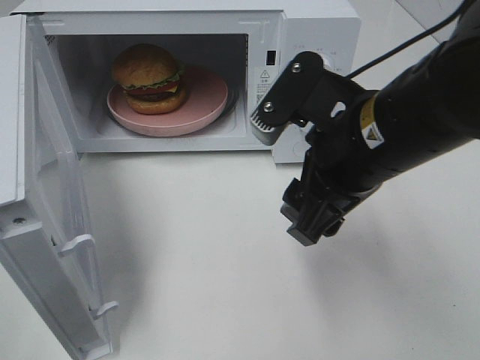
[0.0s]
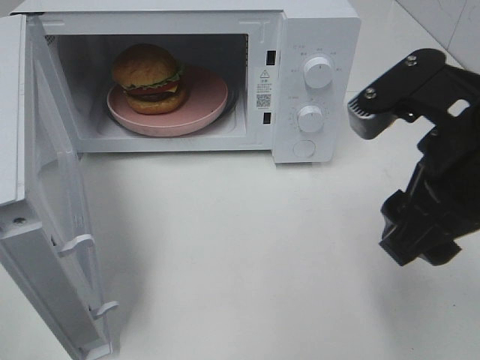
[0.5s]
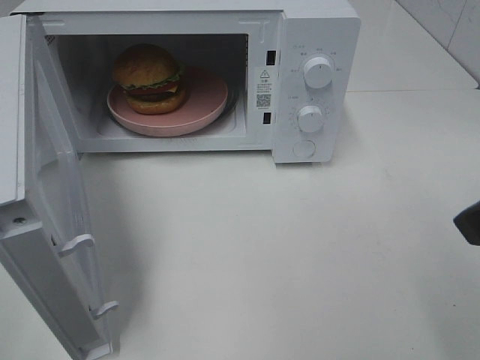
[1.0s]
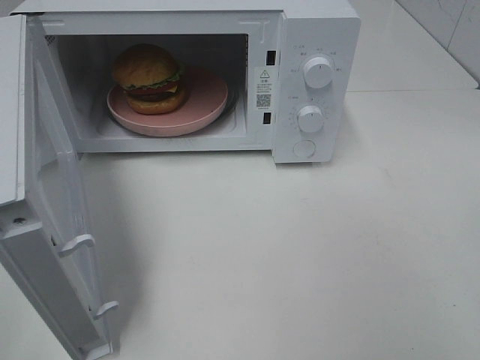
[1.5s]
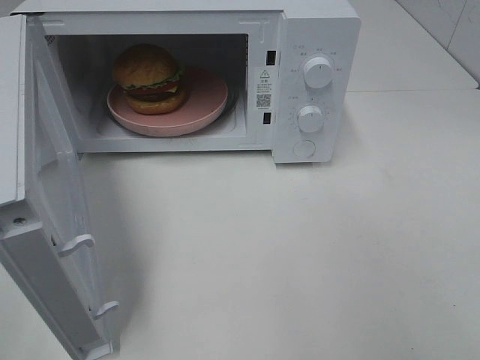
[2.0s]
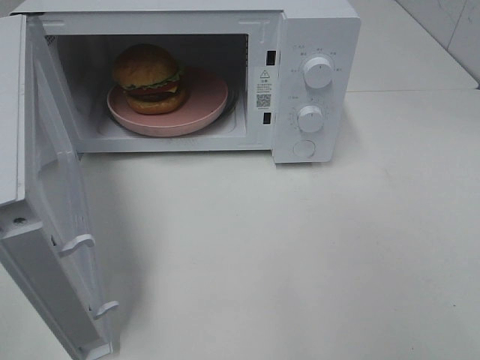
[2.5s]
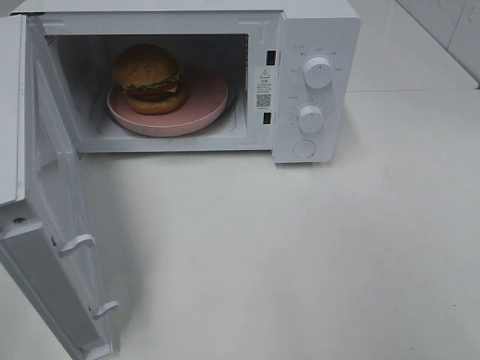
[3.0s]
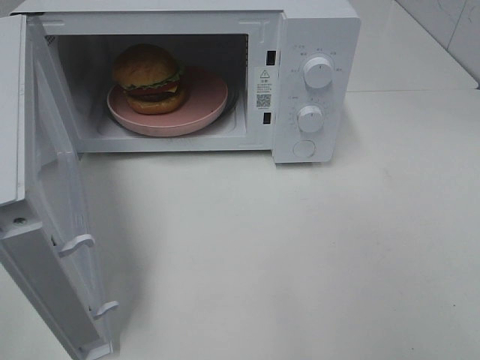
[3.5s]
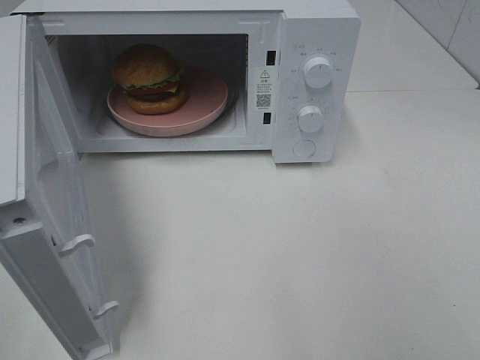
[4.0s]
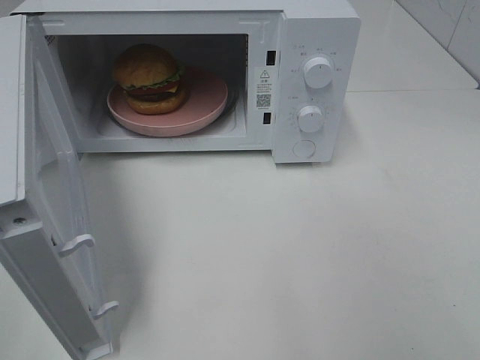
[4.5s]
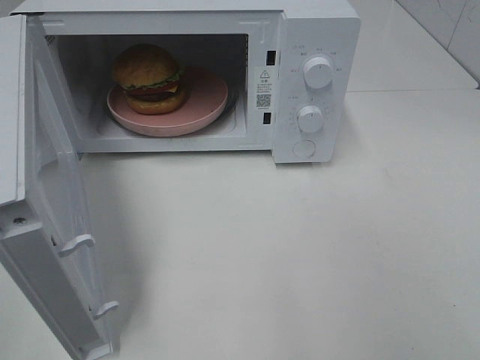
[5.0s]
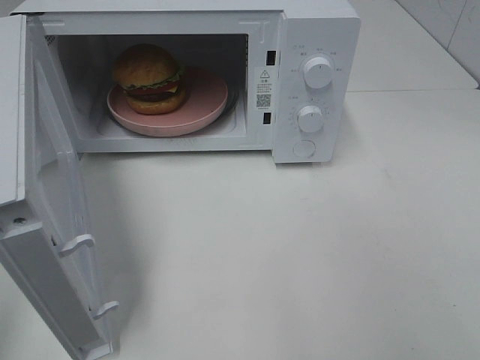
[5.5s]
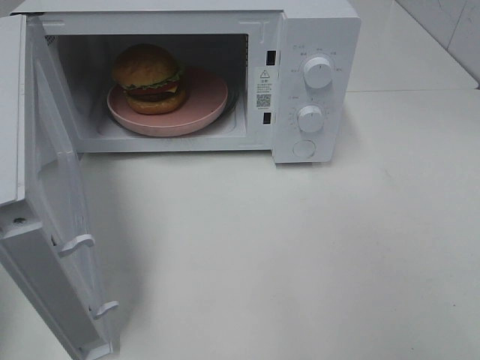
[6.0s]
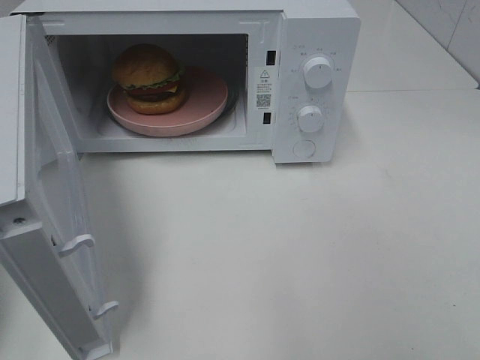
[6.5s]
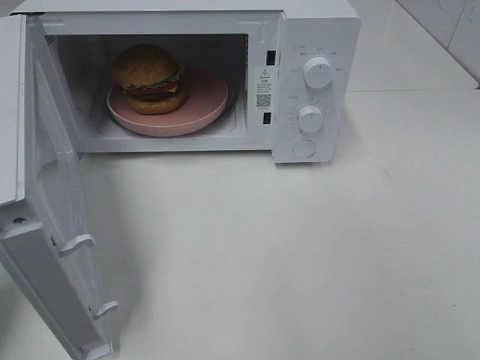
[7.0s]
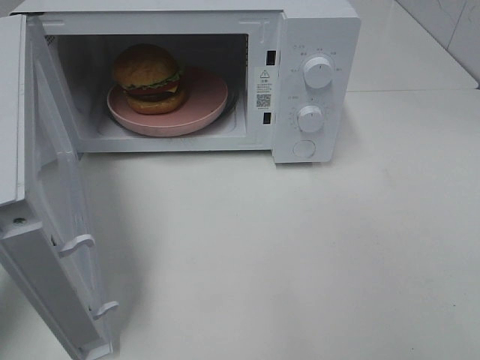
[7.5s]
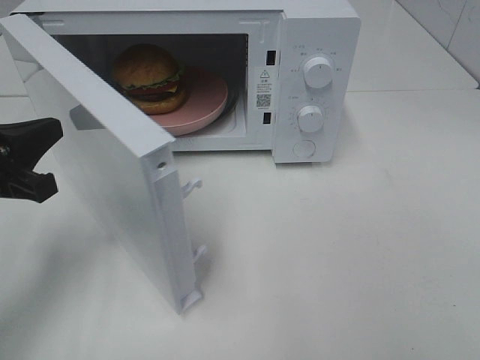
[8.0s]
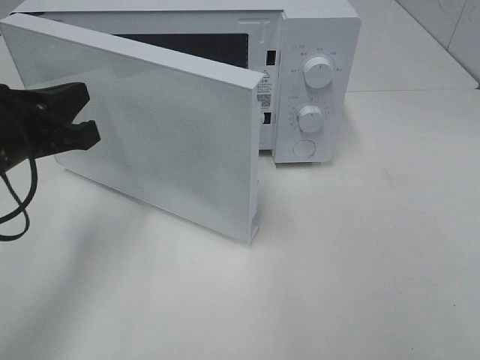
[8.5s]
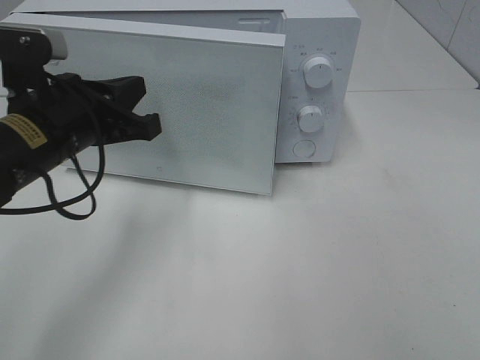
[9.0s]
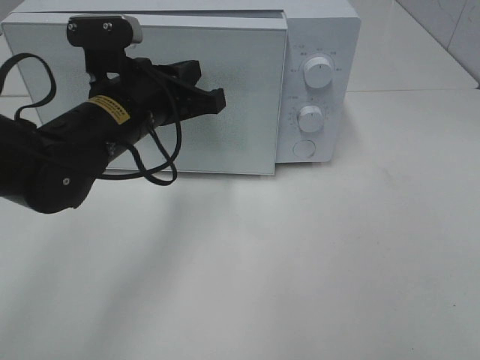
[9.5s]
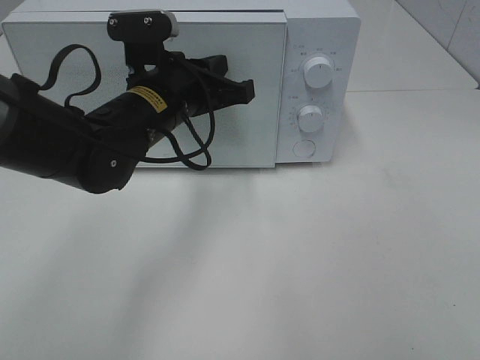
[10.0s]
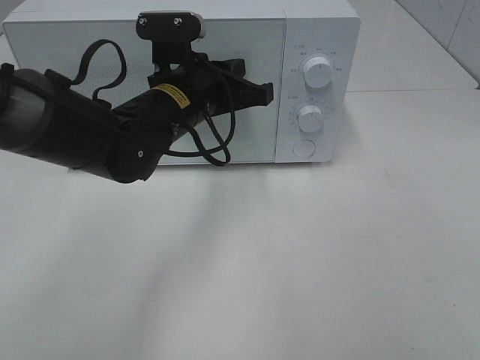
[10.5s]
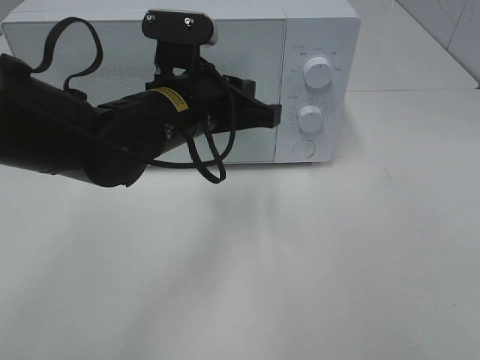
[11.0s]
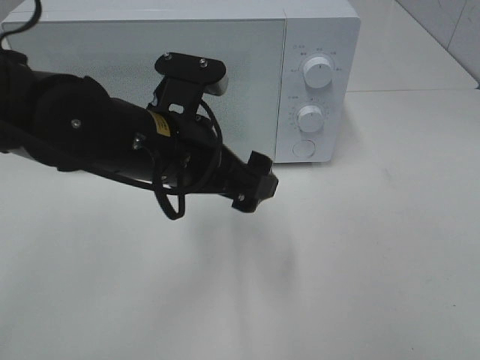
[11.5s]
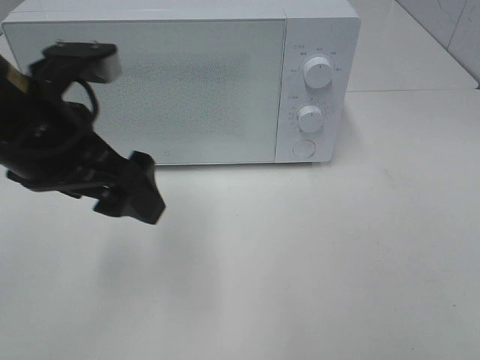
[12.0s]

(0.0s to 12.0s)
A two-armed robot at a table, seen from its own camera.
Task of the whole recording: Heat the burger.
Step, 0.0s - 10.5s: Left hand: close the microwave door.
0.0s - 2.0s: The right gripper moves to the right and backward, roughly 25 cm.
6.0s - 8.0s: The left gripper is displaced forward, downward and to the right by some 20 cm.
8.0s - 10.0s: The left gripper shifts some 20 cm to the right and forward.
10.0s - 12.0s: The left gripper is displaced backward, to the left and upward by about 15 cm, and opens its fingers.

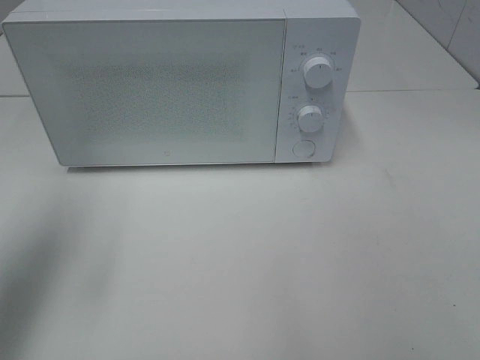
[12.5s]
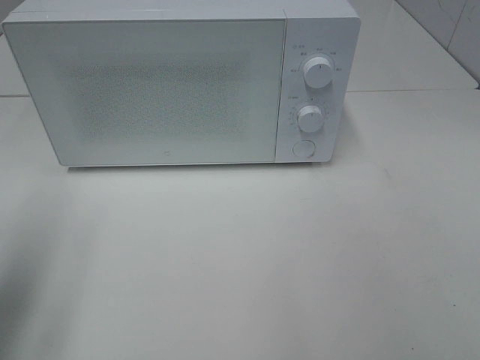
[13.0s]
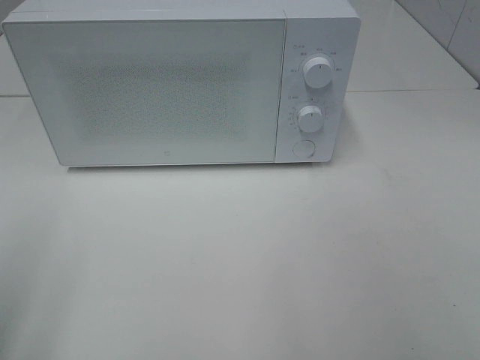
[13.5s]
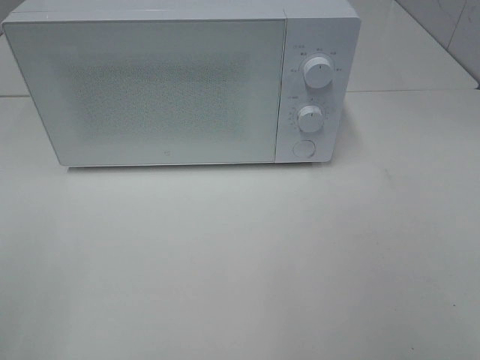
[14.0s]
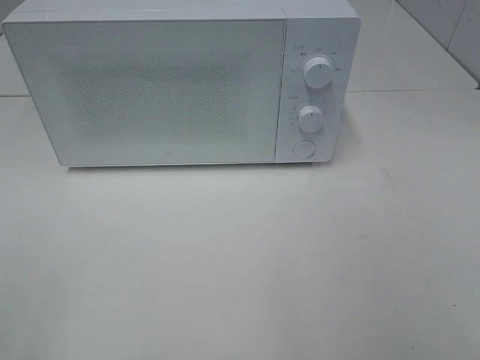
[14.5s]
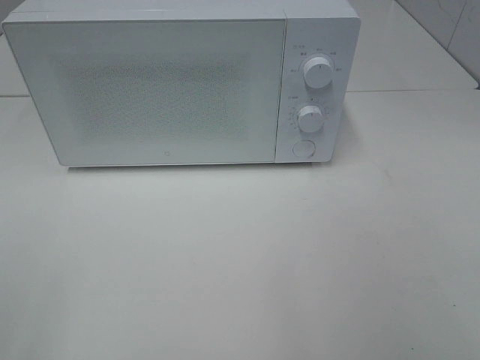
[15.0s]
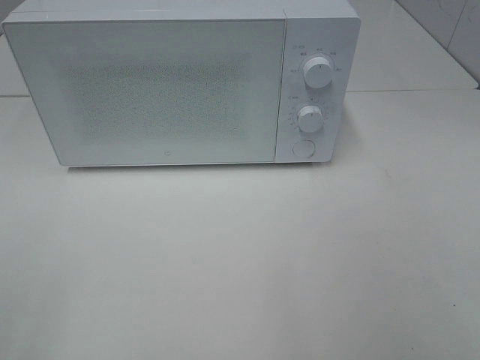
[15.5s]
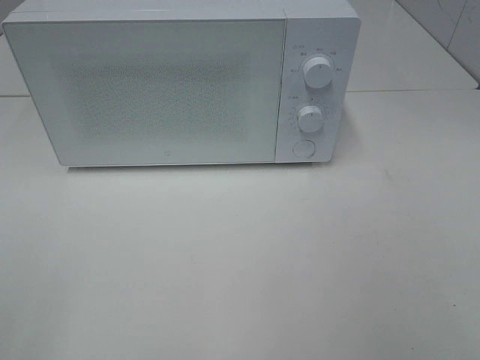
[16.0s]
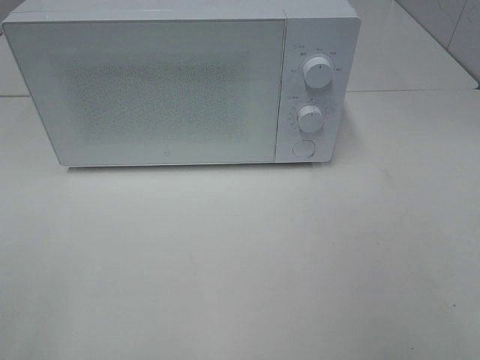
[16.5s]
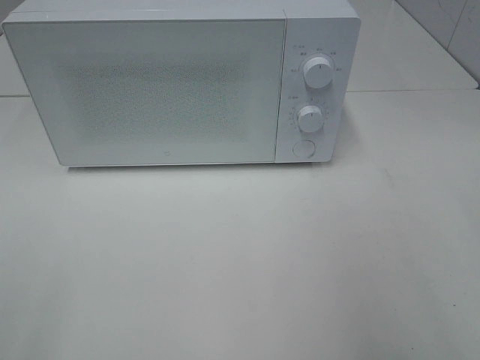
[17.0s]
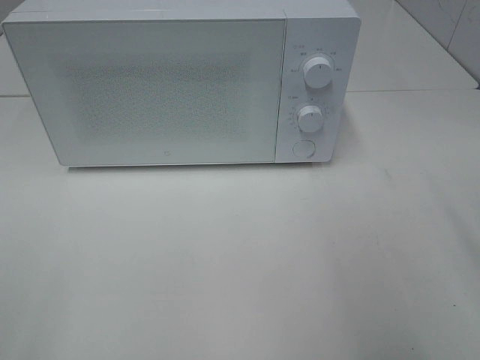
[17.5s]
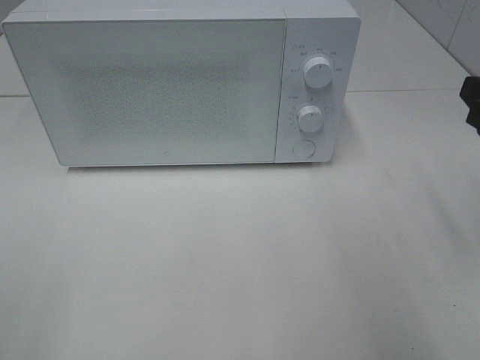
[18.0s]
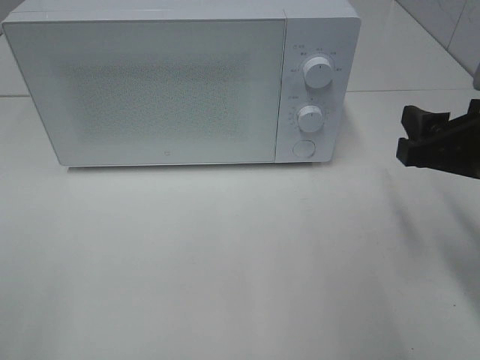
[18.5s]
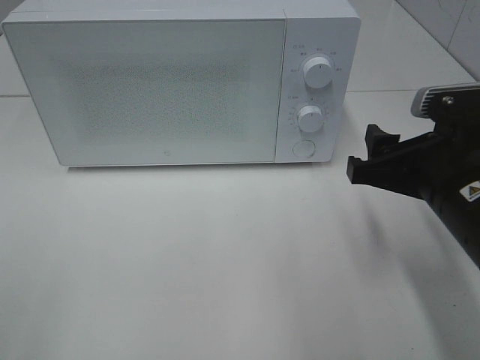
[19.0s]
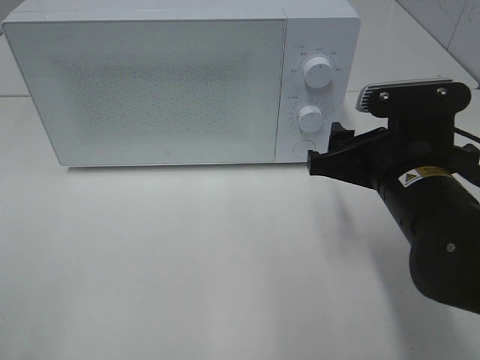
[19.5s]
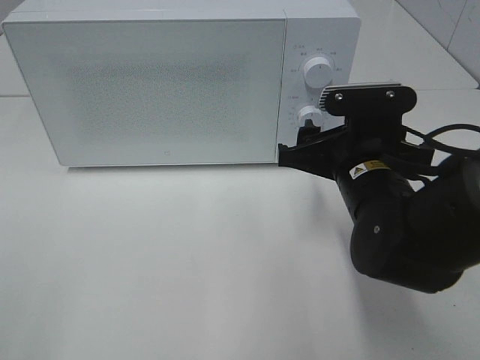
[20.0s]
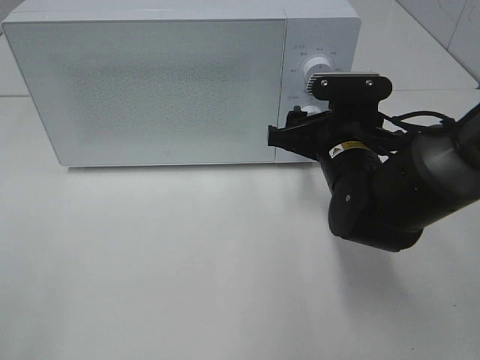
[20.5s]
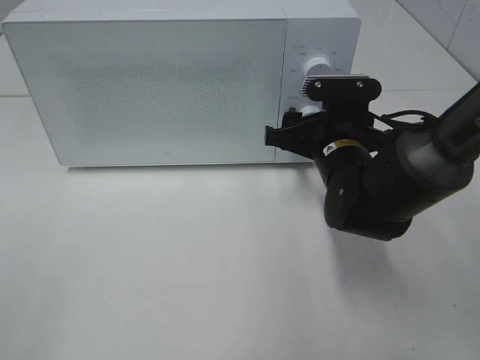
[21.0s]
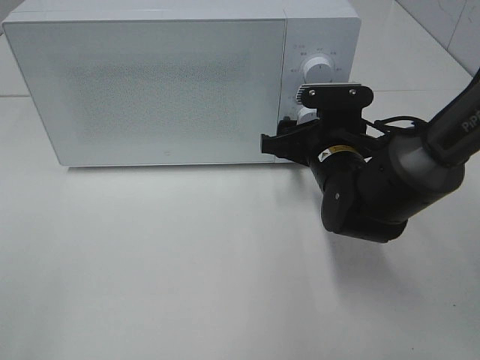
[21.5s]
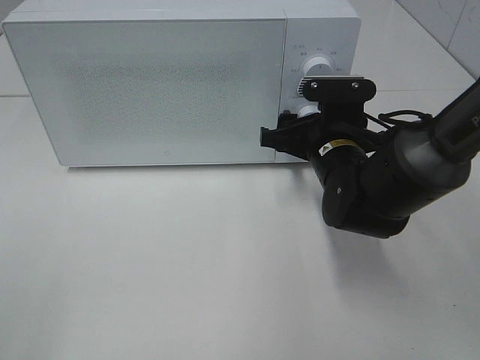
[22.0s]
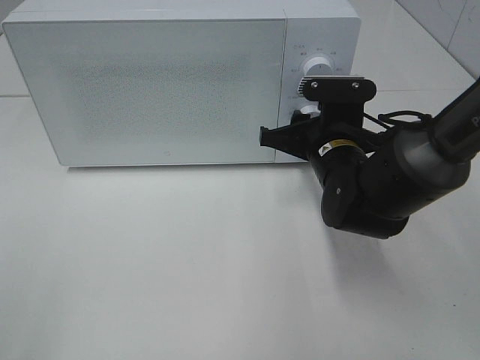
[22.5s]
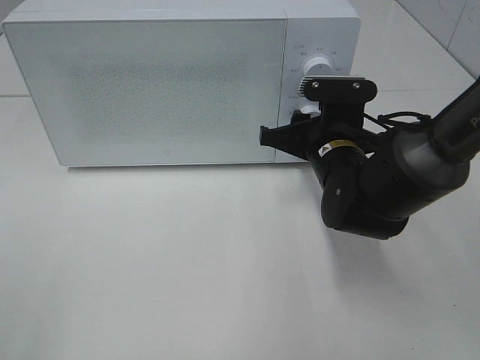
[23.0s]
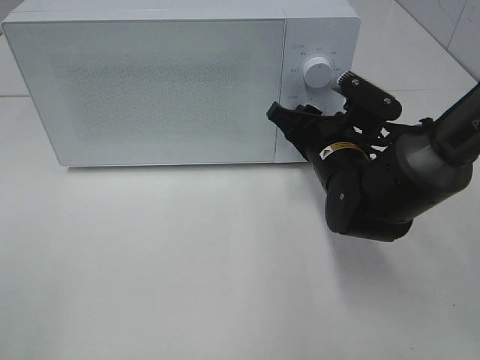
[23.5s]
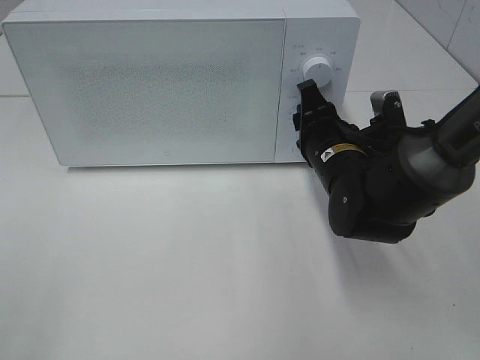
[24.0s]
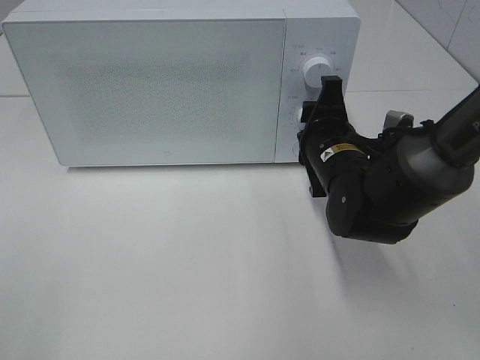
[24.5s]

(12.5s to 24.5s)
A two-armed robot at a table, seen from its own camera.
Task of the whole recording: Heat the burger.
12.5s - 14.5s: The left gripper is displaced backward by some 20 cm.
16.5s - 18.5s: The right gripper goes roughly 20 cm forward and downward.
18.5s - 20.5s: The right gripper heads to the left, forward and downward, covering about 15 cm.
20.5s - 22.5s: The grippers stay close to where they were, moving slightly.

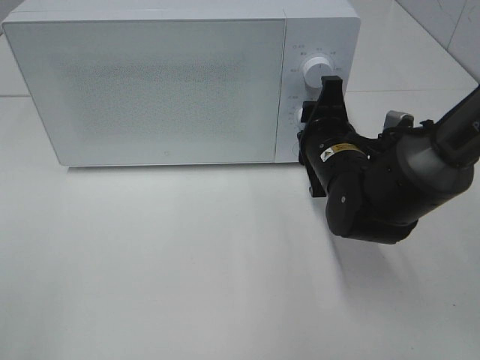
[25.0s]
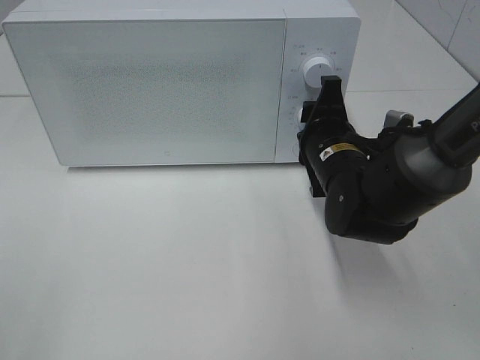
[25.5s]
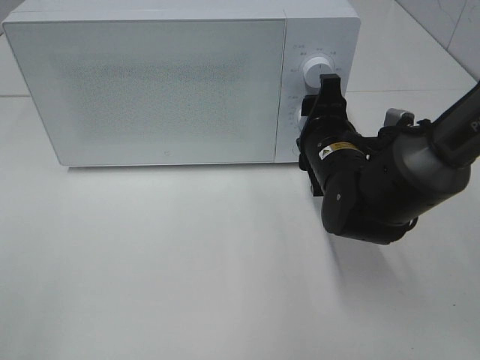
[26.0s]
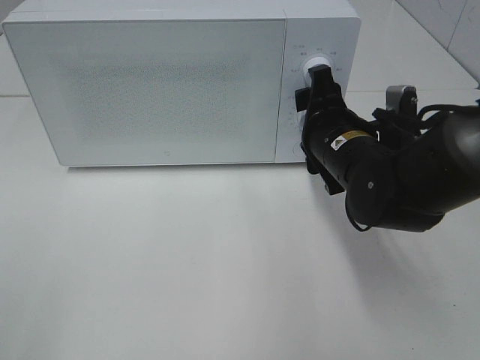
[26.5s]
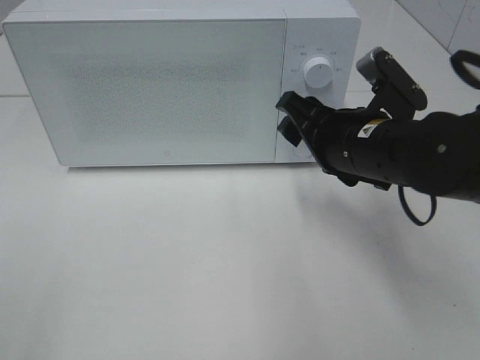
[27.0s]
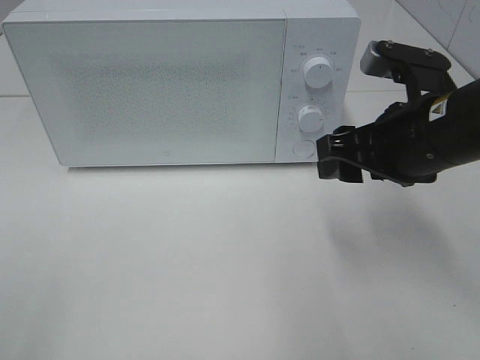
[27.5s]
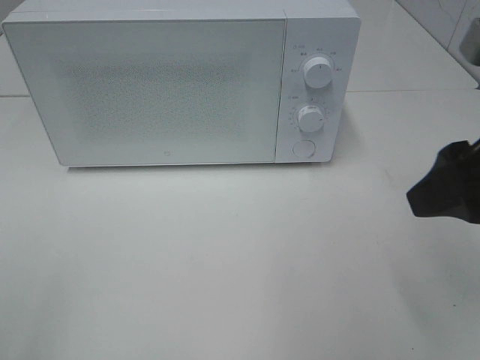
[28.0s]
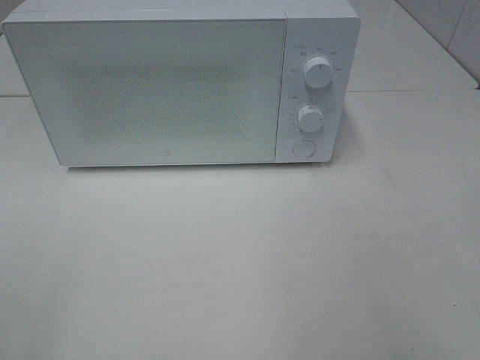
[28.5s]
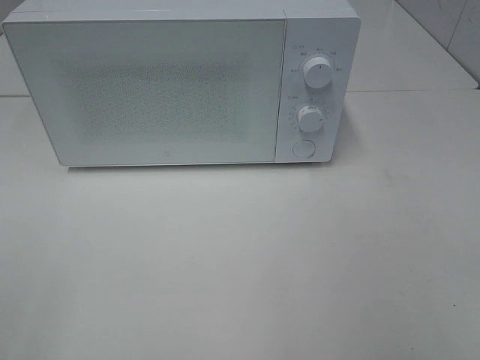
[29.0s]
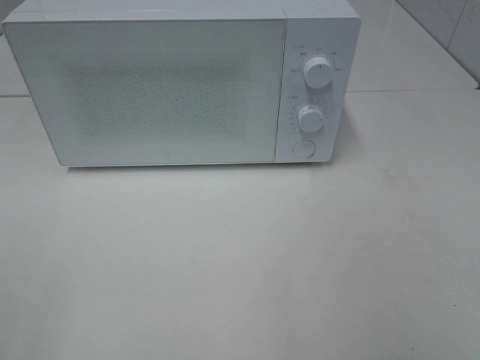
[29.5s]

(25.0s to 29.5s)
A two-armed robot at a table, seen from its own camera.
Task of the whole recording: Heat the burger.
25.0s - 27.0s: The right gripper shifts roughly 5 cm upward.
27.0s - 29.5s: The right gripper heads backward, to the right and upward, covering about 35 cm.
